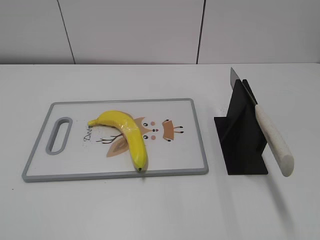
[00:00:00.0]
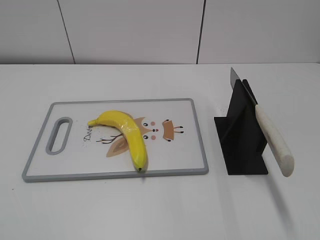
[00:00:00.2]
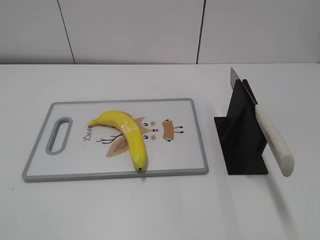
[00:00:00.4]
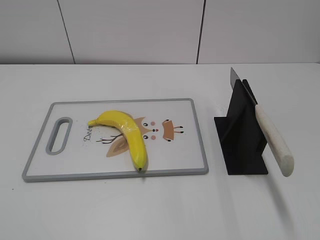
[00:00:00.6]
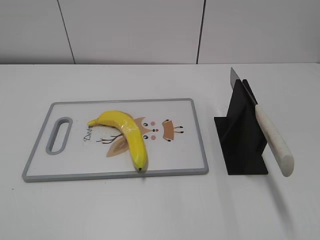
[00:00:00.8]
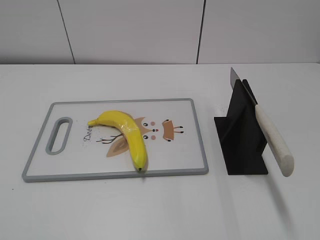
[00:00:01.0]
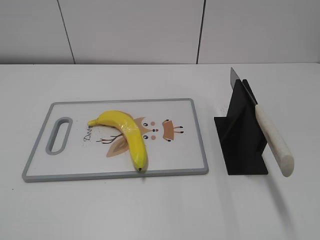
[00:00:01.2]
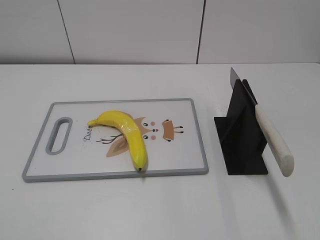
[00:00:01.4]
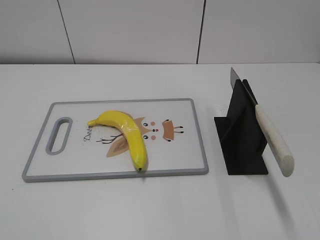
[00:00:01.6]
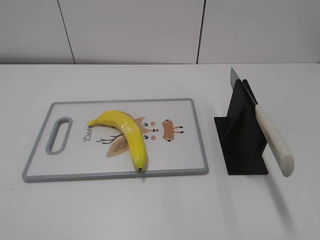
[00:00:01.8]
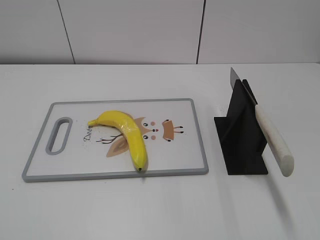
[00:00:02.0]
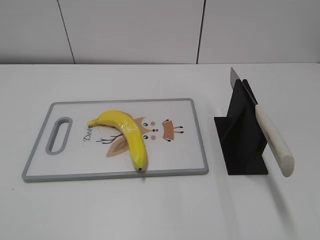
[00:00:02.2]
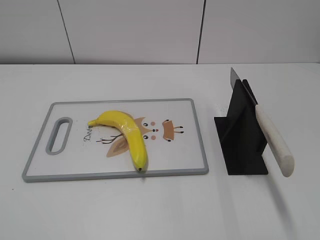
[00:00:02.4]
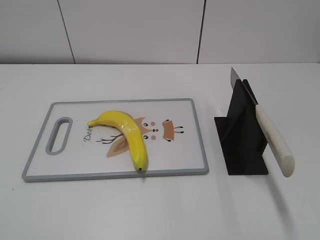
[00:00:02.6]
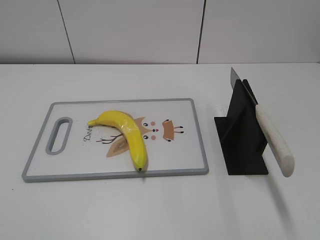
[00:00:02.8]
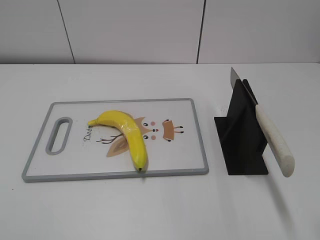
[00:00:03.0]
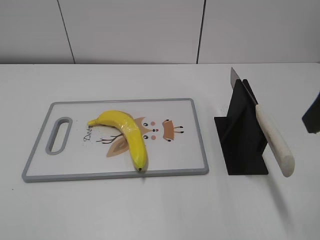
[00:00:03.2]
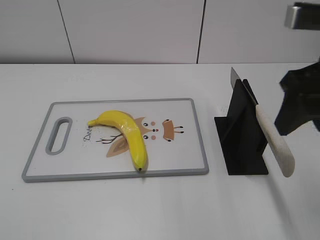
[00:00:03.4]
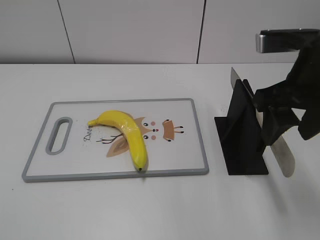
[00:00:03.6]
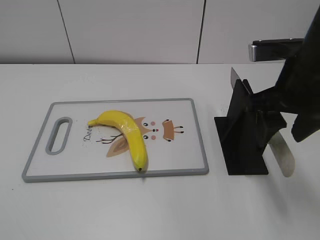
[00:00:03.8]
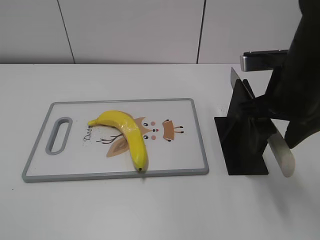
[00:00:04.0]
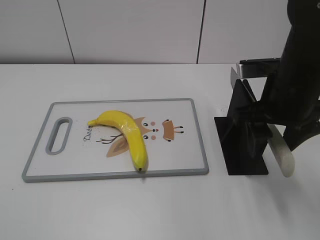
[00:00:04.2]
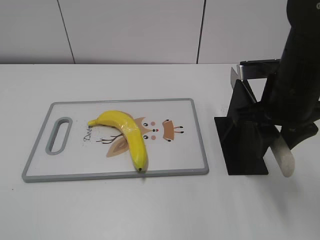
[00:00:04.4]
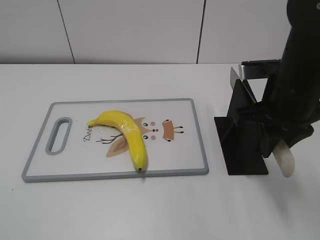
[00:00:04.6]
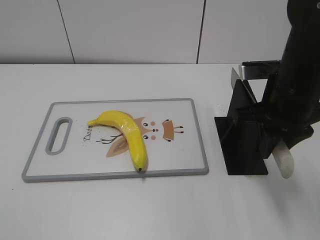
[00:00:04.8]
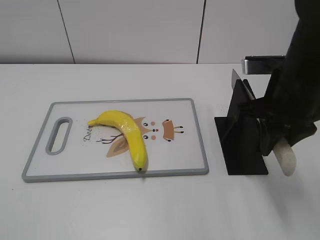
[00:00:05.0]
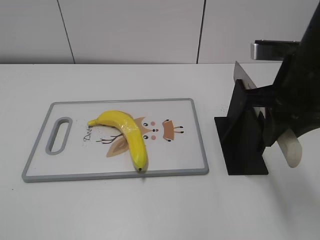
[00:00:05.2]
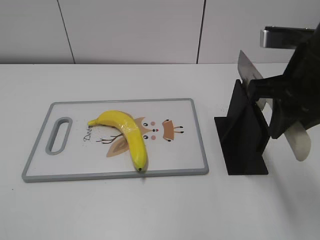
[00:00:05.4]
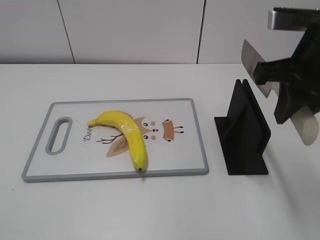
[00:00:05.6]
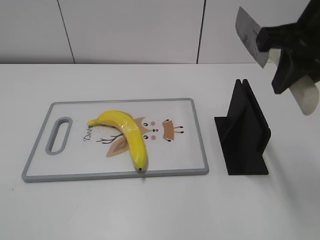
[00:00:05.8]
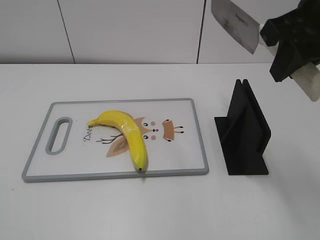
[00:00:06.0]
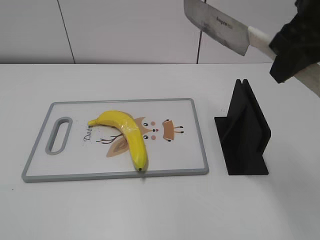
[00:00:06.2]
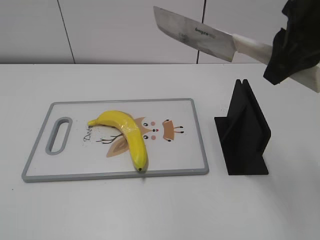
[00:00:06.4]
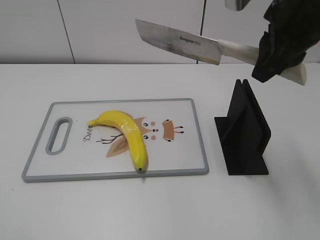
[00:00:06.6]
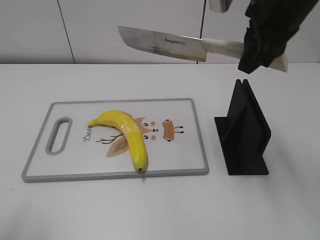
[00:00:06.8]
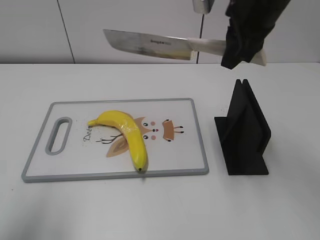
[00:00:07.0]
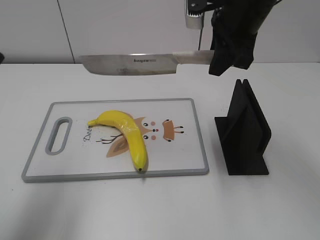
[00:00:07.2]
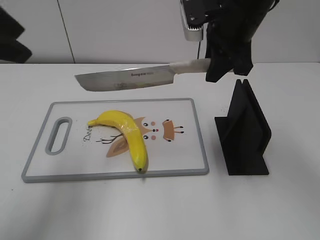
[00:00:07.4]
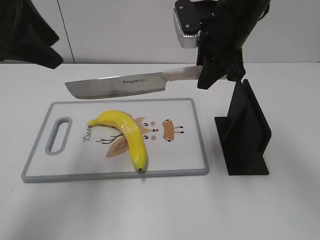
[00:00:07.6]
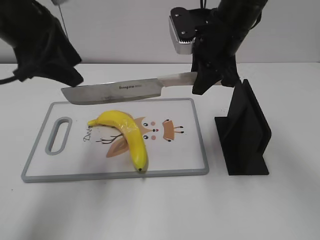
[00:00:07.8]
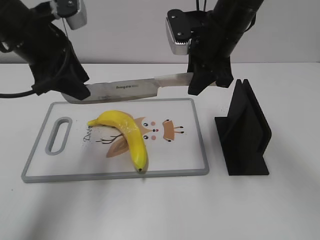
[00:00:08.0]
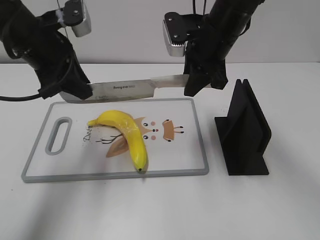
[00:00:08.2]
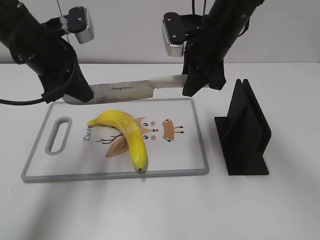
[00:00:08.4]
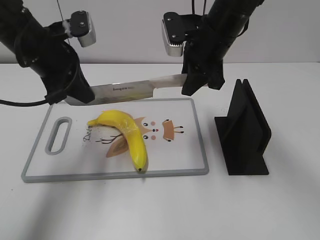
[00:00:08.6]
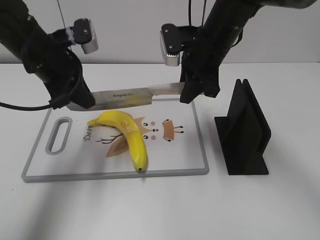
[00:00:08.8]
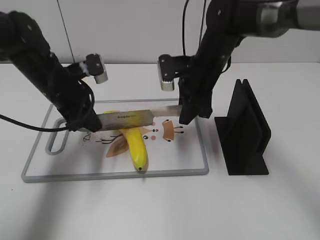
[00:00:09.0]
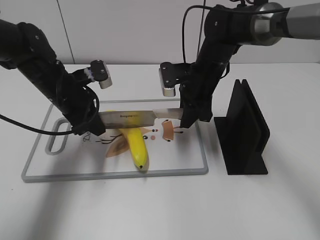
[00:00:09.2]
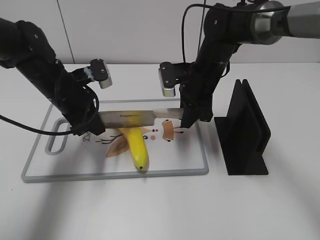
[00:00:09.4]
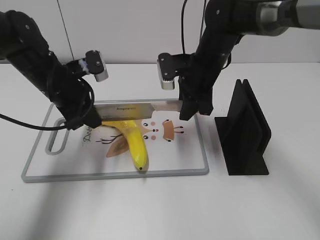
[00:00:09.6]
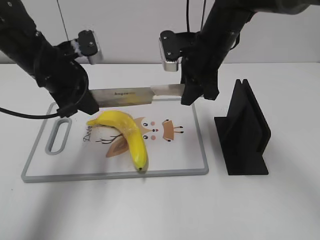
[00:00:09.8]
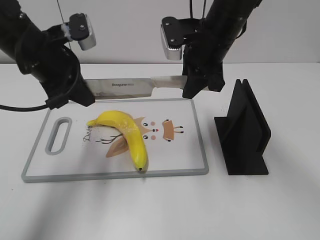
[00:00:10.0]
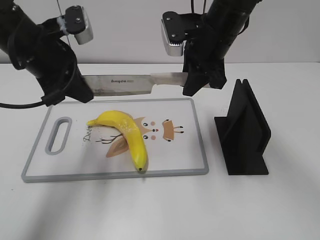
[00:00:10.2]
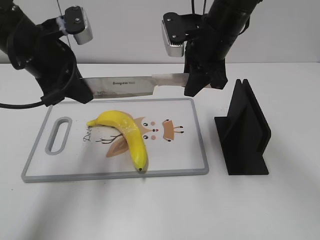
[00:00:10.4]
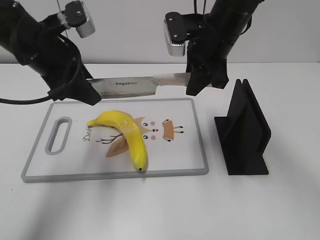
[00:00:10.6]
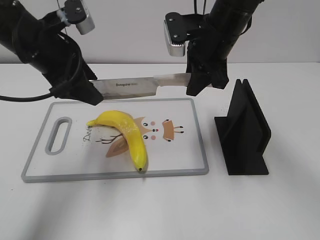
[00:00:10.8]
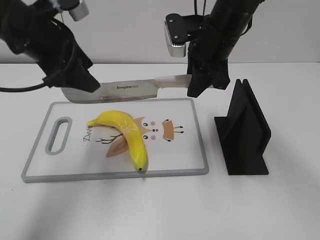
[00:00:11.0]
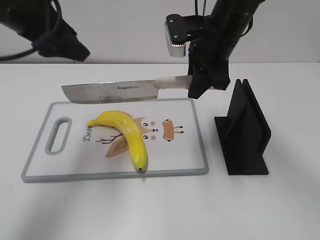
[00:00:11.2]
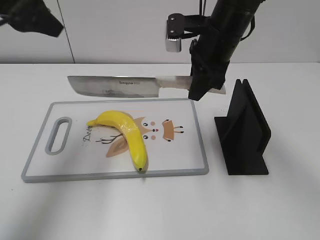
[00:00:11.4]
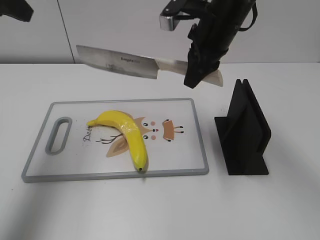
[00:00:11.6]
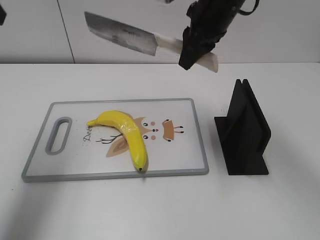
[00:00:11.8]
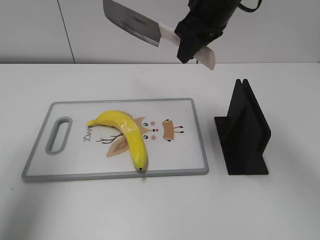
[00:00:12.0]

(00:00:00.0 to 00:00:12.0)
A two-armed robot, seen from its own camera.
Task of the whole recording: cut plastic banana.
Step, 00:00:00.0 - 00:00:05.4: Grab the knife handle with your right hand.
Step, 00:00:05.8 - 00:00:10.2: Lift the knife with your right hand.
00:00:03.0 - 00:00:04.4: The right gripper travels forward, downward and to the left by about 20 cm.
00:00:04.4 - 00:00:06.0: The right gripper travels upward by some 10 cm, and closes up.
00:00:06.0 - 00:00:07.6: The right gripper travels forward, downward and to the left by about 15 cm. Meanwhile the left gripper is displaced forward by roughly 30 cm.
00:00:07.6 - 00:00:09.0: The right gripper goes some 10 cm downward. The left gripper shifts some 20 cm downward and forward, and closes.
00:00:09.0 - 00:00:10.4: The grippers both shift upward by approximately 10 cm.
00:00:10.4 - 00:00:12.0: The left gripper moves upward and to the left, some 15 cm, and opens its fingers; the right gripper is displaced upward by roughly 5 cm.

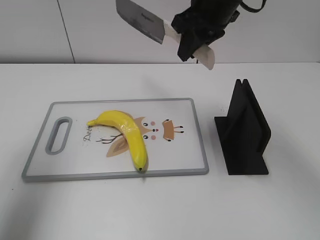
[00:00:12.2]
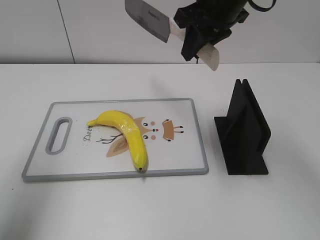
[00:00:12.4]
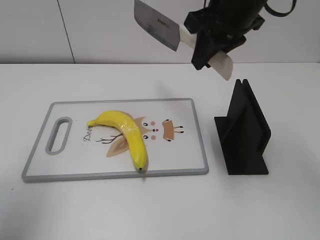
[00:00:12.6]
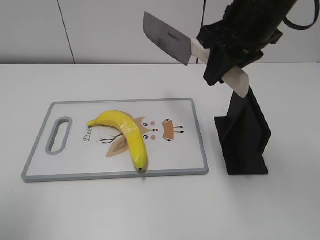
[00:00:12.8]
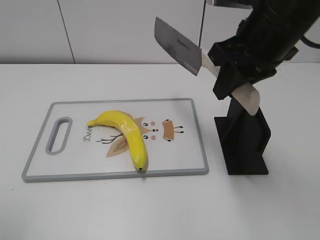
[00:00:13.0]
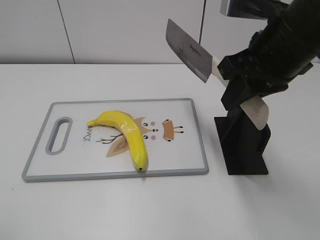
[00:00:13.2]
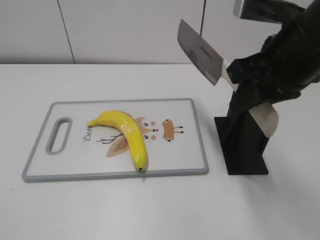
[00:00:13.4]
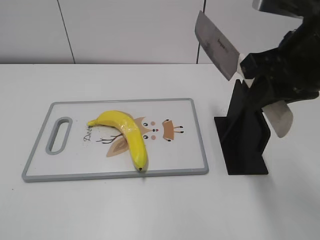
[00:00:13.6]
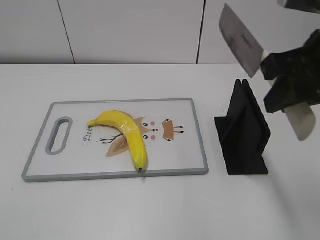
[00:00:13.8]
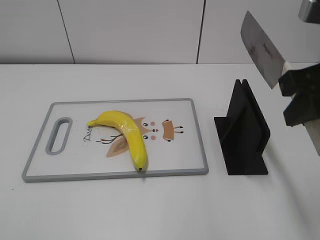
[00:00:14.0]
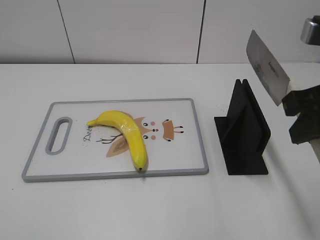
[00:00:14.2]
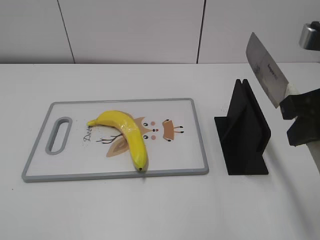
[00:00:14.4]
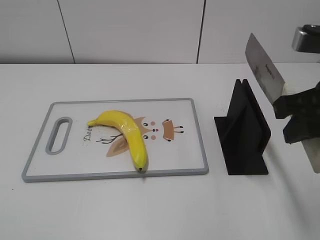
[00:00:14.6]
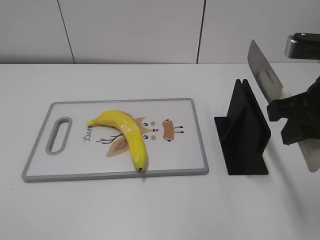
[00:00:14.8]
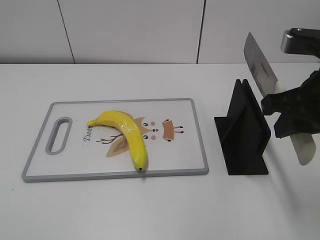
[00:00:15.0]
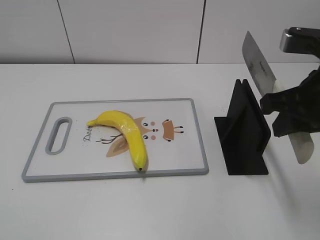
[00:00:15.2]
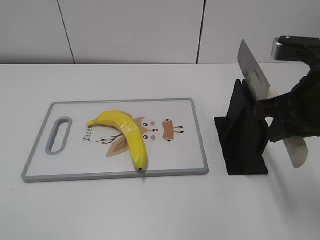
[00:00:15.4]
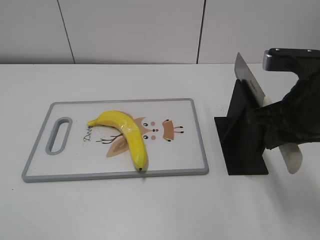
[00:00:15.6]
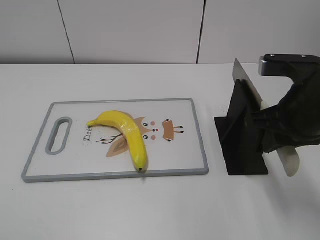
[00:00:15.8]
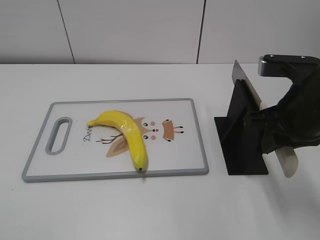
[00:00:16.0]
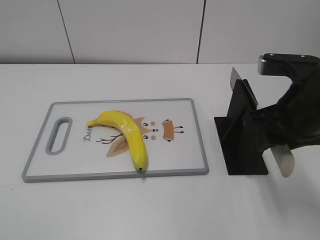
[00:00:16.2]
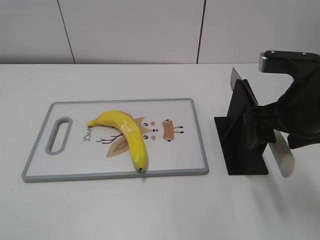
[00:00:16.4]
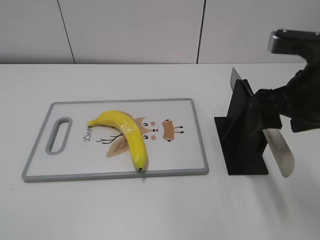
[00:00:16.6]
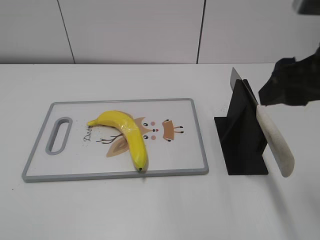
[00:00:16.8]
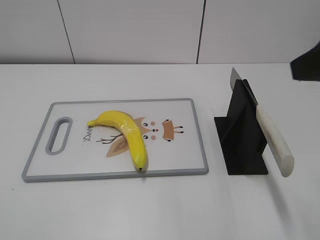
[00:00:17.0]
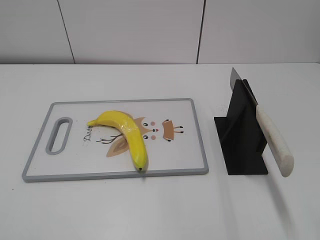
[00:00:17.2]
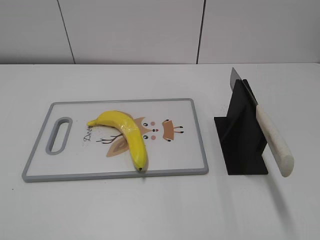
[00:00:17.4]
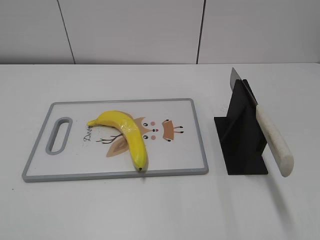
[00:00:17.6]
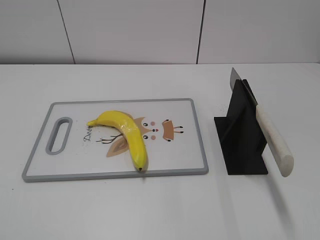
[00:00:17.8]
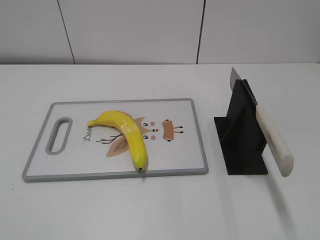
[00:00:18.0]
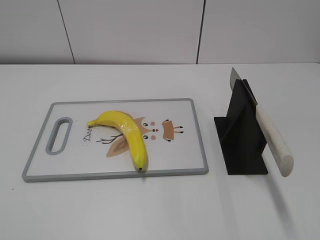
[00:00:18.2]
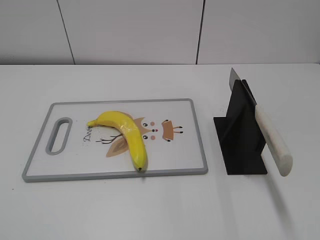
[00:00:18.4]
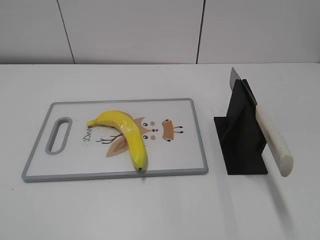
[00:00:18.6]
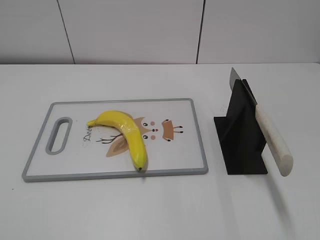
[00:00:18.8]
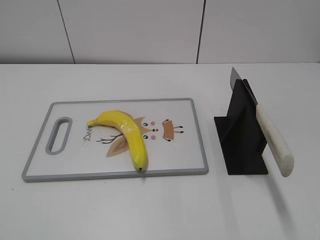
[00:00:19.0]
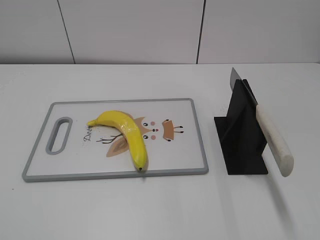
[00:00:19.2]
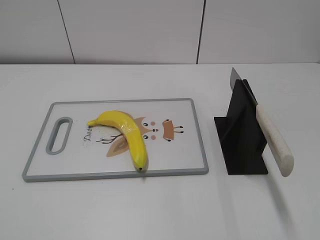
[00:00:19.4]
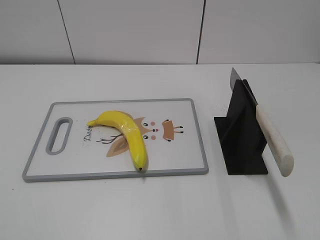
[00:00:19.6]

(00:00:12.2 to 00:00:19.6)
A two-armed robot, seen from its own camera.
Task of the whole recording: cut plastic banana.
Step, 00:00:12.2 - 00:00:12.8: Lift the knife with your right hand.
Step, 00:00:13.2 - 00:00:19.6: Place the knife on the storage rack with your right hand.
00:00:12.2 - 00:00:13.6: The left gripper goes approximately 25 cm backward. Meanwhile the right gripper shifts about 20 cm backward and to the right.
00:00:13.6 - 00:00:15.2: The right gripper moves some 5 cm.
00:00:15.2 - 00:00:16.6: The right gripper opens up.
00:00:16.6 - 00:00:18.2: The right gripper shifts approximately 25 cm backward and to the right.
